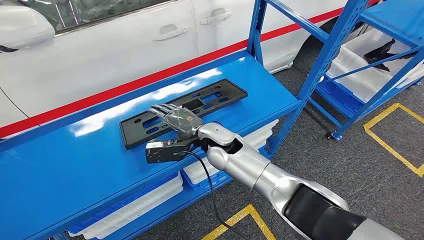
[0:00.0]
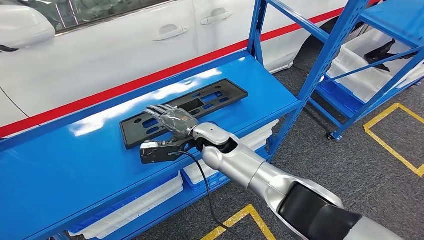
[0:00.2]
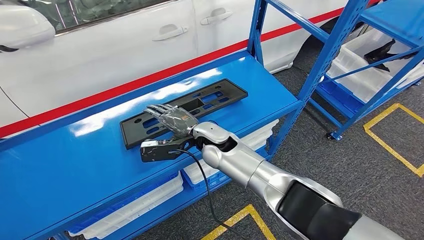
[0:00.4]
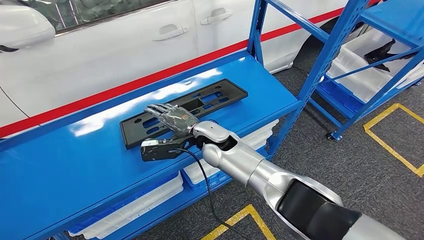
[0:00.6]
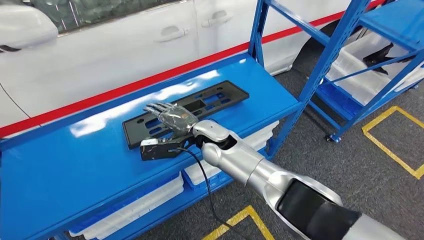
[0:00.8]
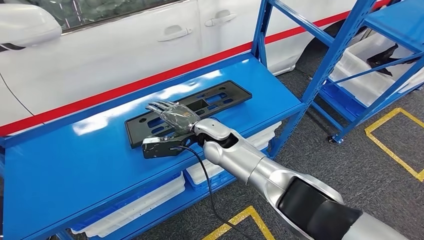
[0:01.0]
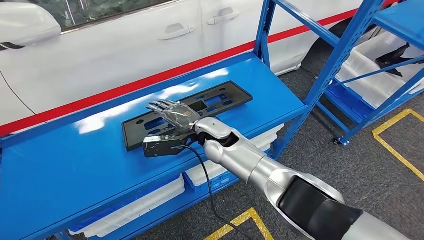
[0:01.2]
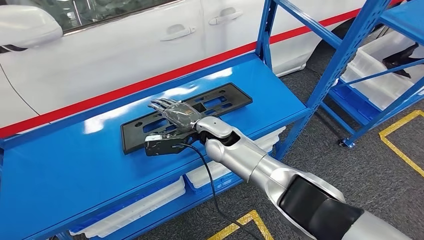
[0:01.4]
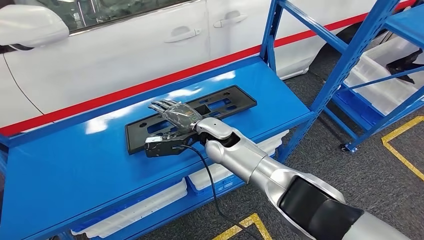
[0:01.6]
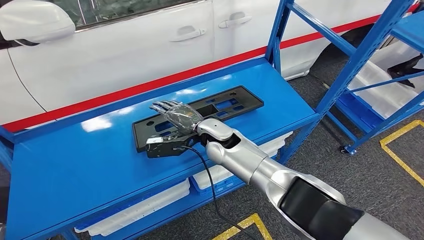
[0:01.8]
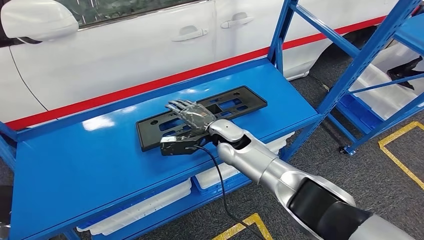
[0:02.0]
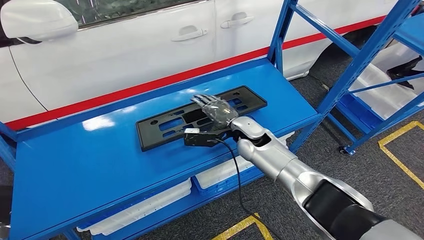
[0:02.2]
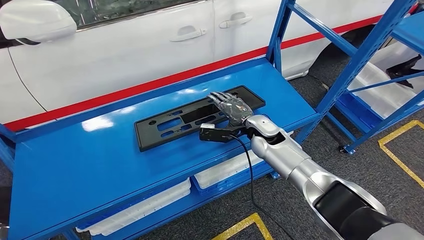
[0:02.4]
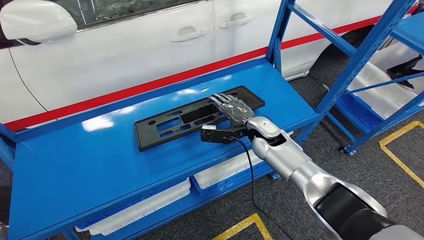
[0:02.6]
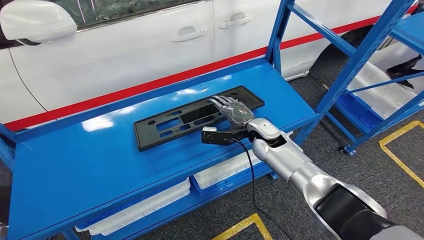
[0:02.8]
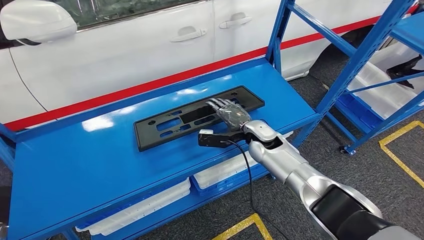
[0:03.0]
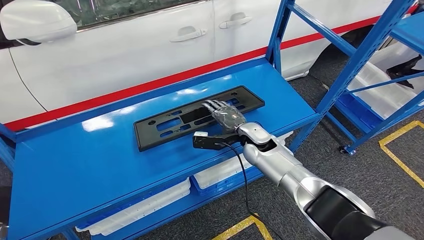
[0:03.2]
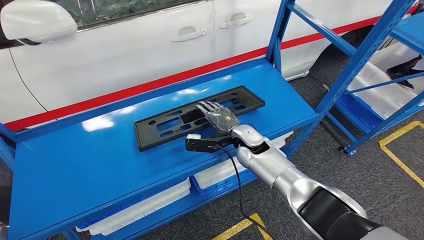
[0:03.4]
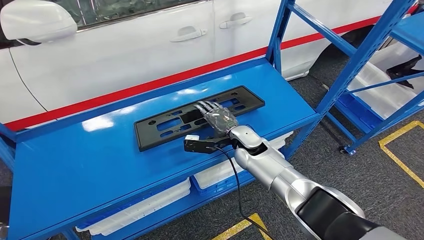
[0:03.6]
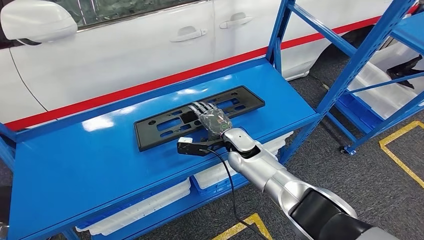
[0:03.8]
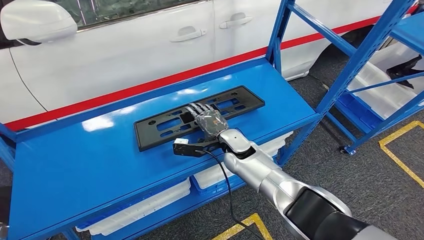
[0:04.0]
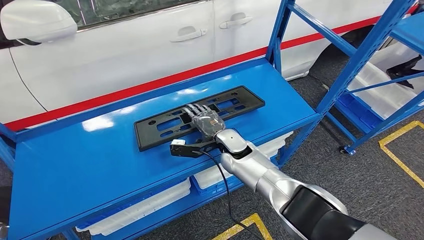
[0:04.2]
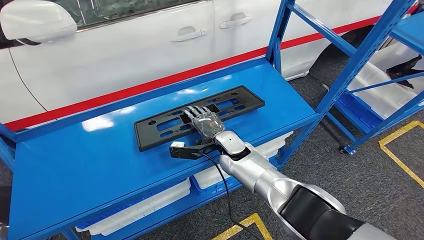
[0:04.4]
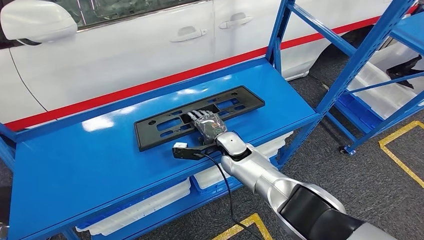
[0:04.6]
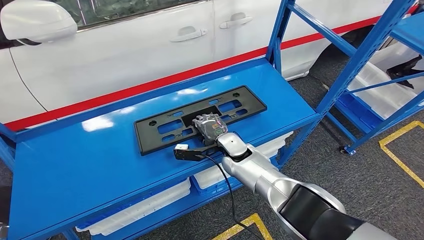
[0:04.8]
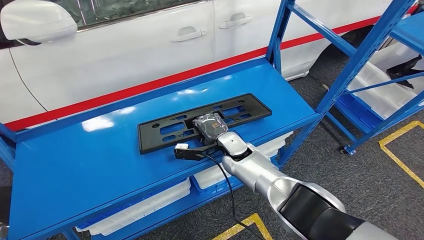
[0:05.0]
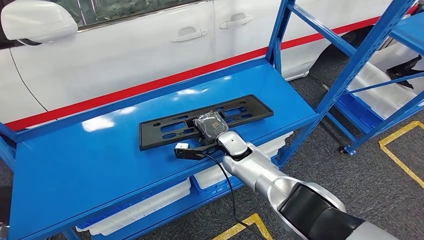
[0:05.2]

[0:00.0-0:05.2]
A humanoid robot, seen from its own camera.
Step, 0:00.0 to 0:05.2: Pick up the large material from the shelf.
0:01.8 to 0:03.4: The right hand is displaced to the right and downward by about 10 cm.
0:03.4 to 0:05.2: The right hand shifts by some 5 cm.
